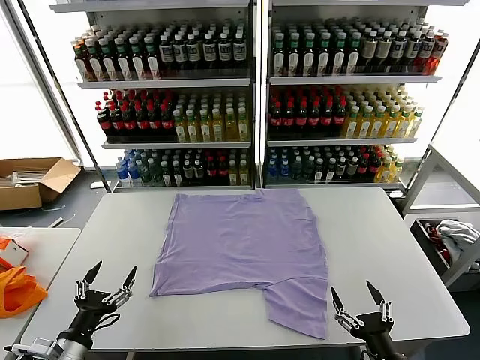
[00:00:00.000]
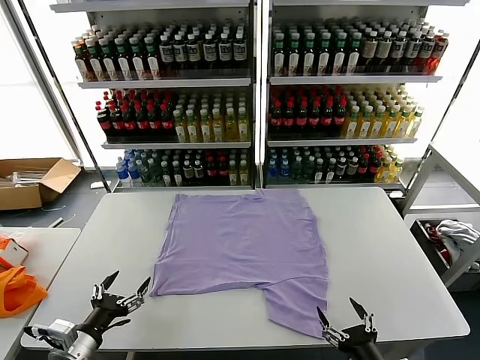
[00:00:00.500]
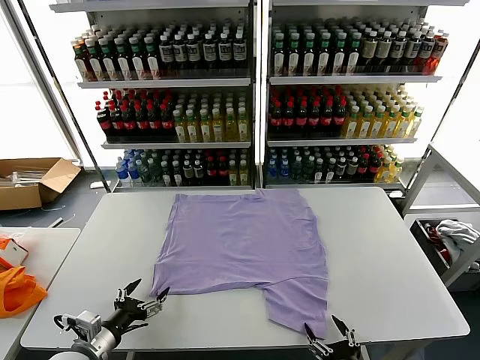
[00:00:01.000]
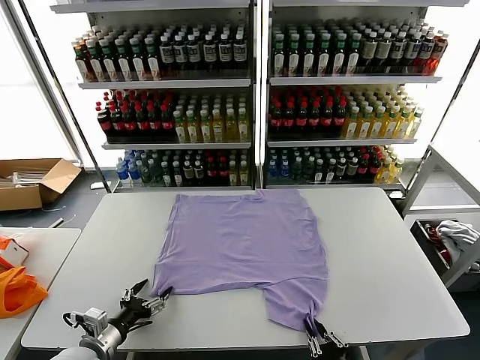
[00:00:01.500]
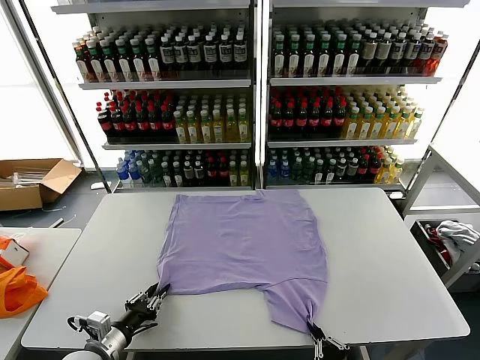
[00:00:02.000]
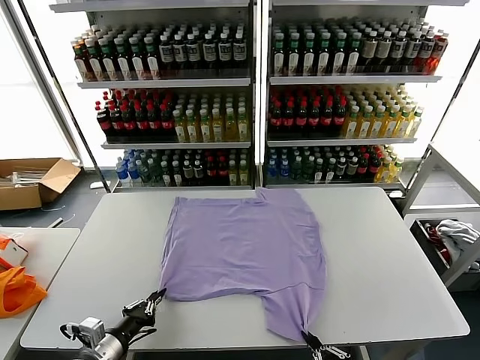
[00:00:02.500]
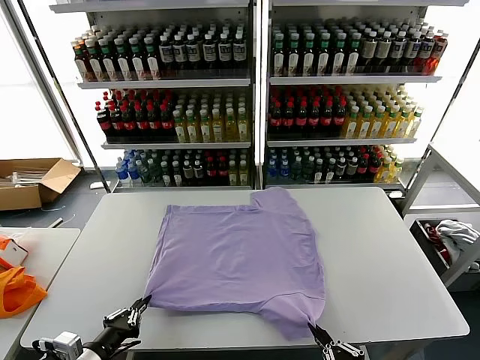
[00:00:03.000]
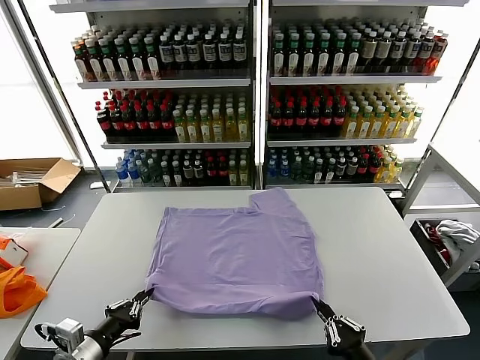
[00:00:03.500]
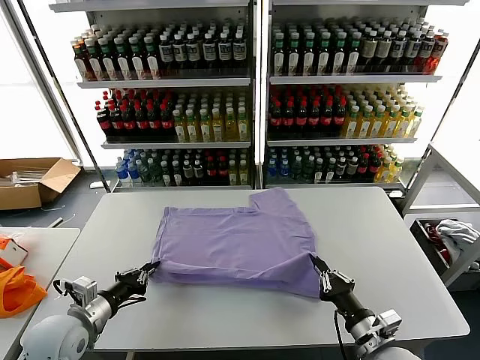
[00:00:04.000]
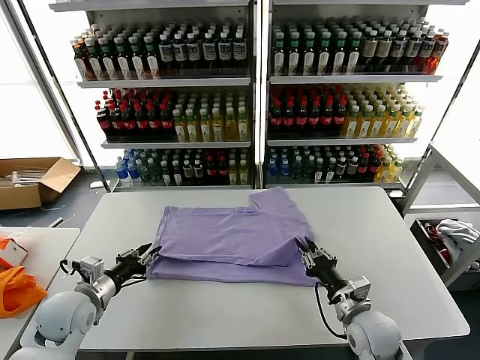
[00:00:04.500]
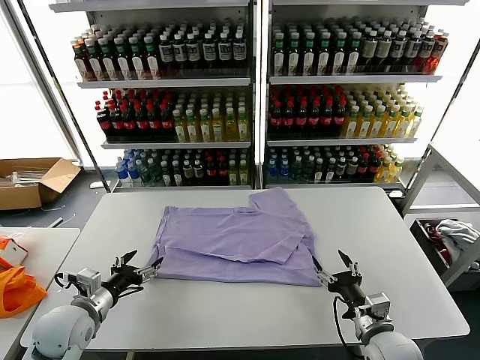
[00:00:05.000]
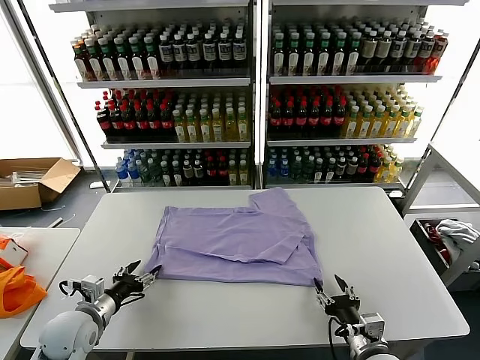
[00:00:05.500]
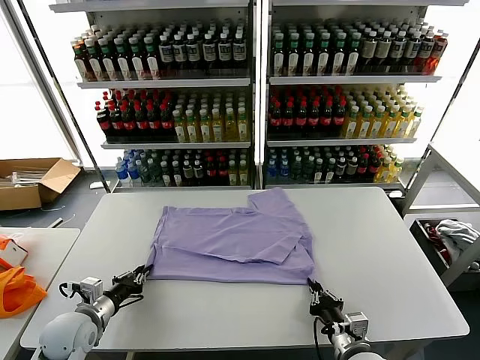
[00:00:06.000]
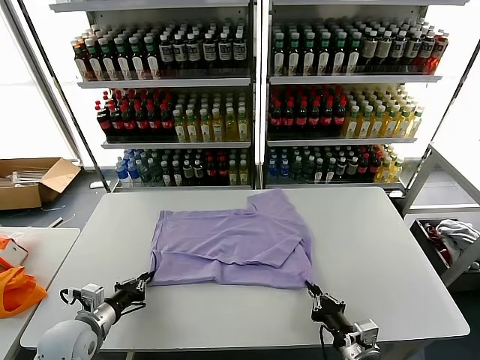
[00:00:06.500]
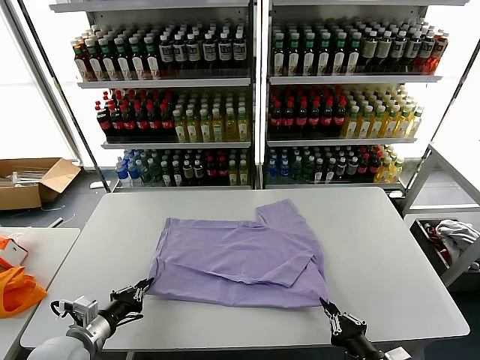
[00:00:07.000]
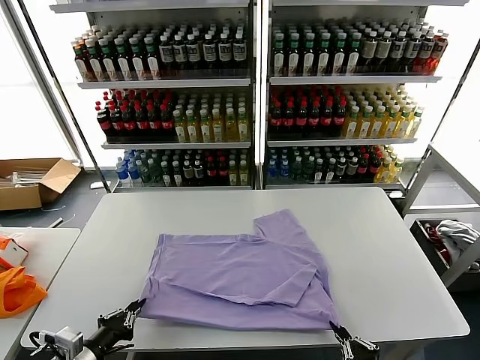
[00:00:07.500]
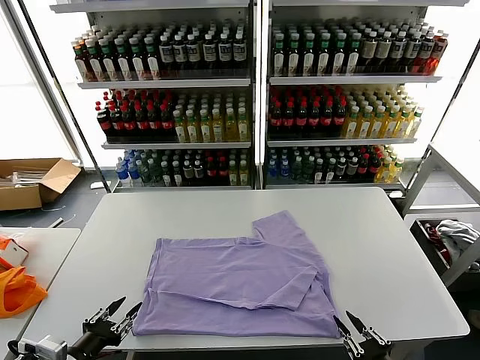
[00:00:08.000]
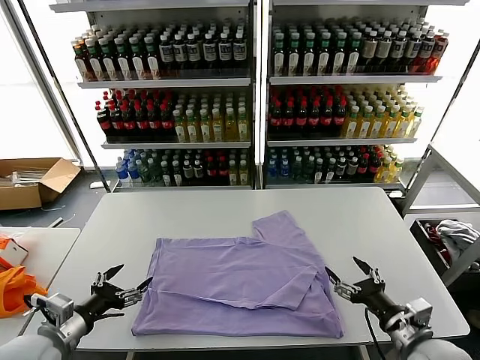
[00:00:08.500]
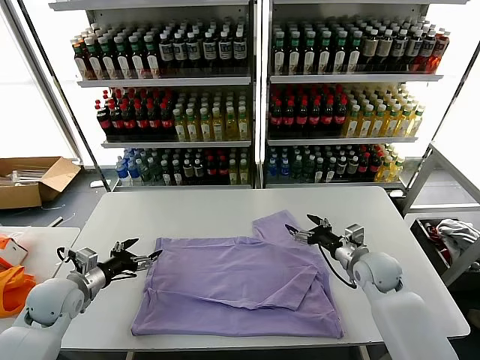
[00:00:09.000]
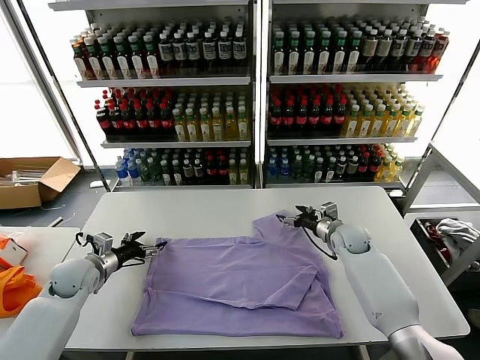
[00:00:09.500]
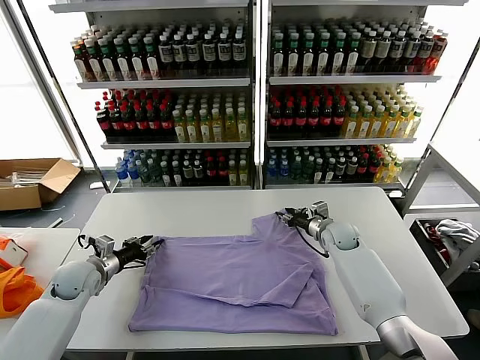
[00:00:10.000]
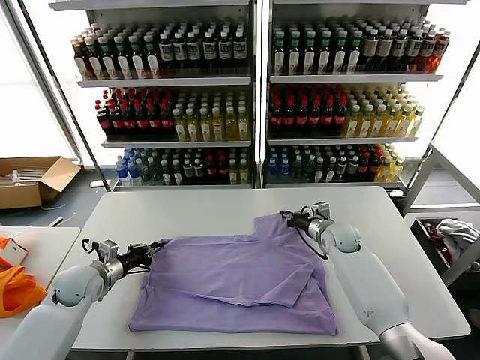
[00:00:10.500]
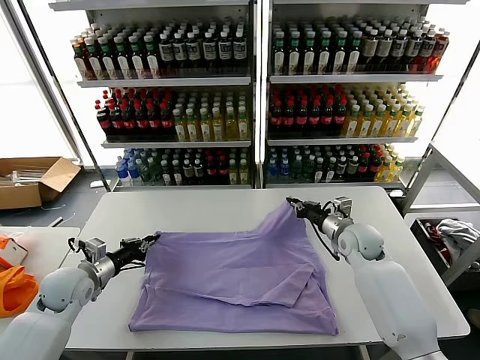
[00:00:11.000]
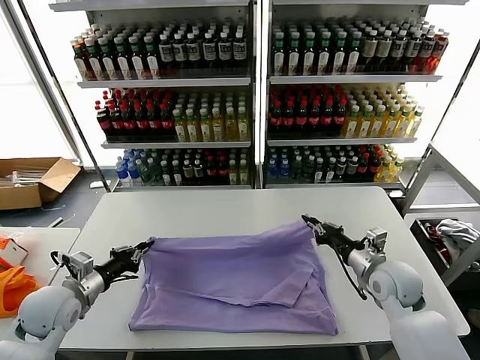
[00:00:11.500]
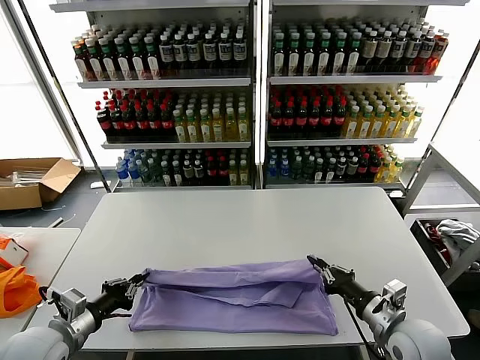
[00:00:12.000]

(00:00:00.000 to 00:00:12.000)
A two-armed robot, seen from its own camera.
Task of the whole recording: fold and organize the clothes.
Step, 00:00:00.000 - 00:00:02.000: use both grippers simultaneously to clamp the lower edge of the clothing fabric.
Step, 00:00:02.500 - 00:00:04.500: use both grippers to drag the lower edge of the fabric forward and fold it over the upper edge.
Step, 00:00:05.000 - 00:00:08.000: Drag the clothes downward with both gripper.
Step, 00:00:08.500 - 00:00:10.000: use both grippers simultaneously to clamp the upper edge of the clothing fabric.
00:00:02.000 - 00:00:04.000: The left gripper moves upward and forward, approximately 10 cm. The right gripper moves forward, roughly 15 cm.
00:00:04.000 - 00:00:06.000: The right gripper shifts by some 5 cm, and opens, then closes once more; the left gripper goes roughly 5 cm downward, and opens and closes again.
00:00:06.000 - 00:00:08.000: The left gripper moves backward and upward, about 15 cm, and opens; the right gripper shifts approximately 15 cm backward, to the right and upward, and opens.
00:00:08.000 - 00:00:10.000: The right gripper heads forward, covering roughly 40 cm, and opens, then closes again; the left gripper shifts about 25 cm forward, and opens, then closes once more.
00:00:10.000 - 00:00:12.000: The left gripper moves backward, about 15 cm, and closes. Meanwhile the right gripper travels backward by approximately 30 cm, and closes up.

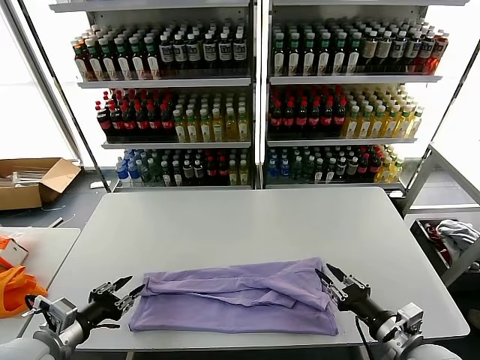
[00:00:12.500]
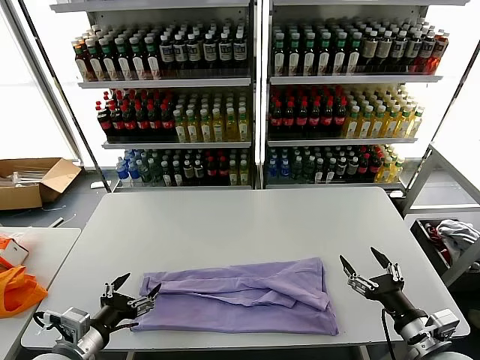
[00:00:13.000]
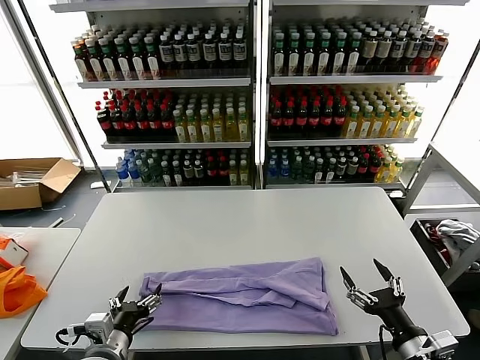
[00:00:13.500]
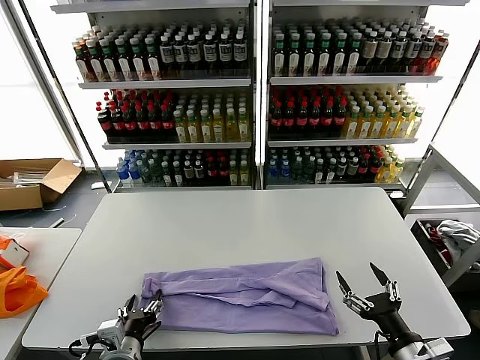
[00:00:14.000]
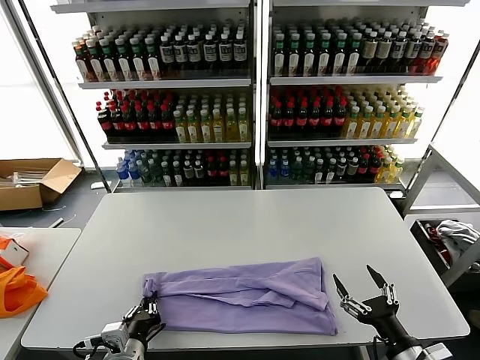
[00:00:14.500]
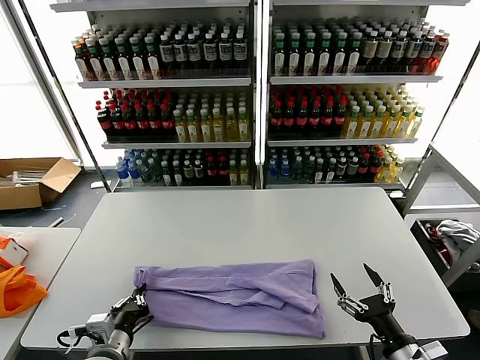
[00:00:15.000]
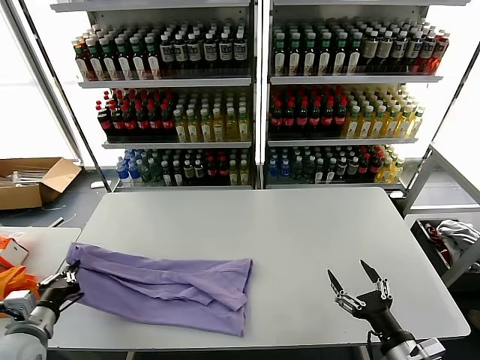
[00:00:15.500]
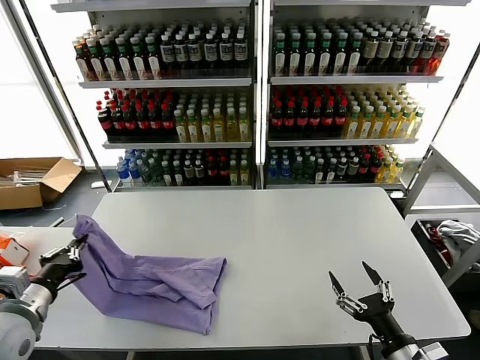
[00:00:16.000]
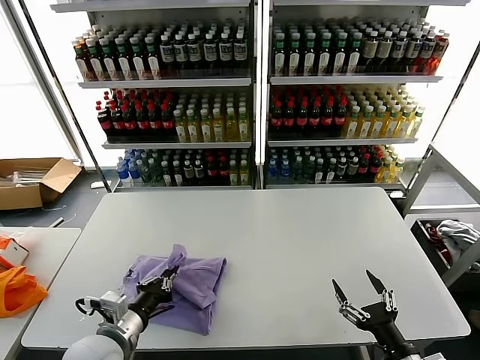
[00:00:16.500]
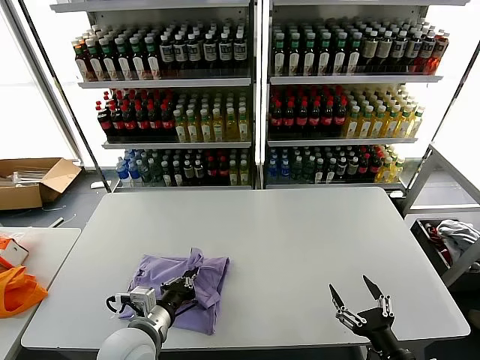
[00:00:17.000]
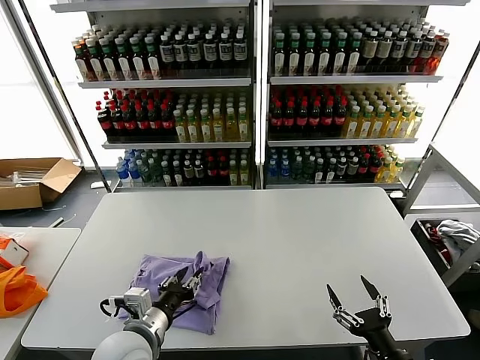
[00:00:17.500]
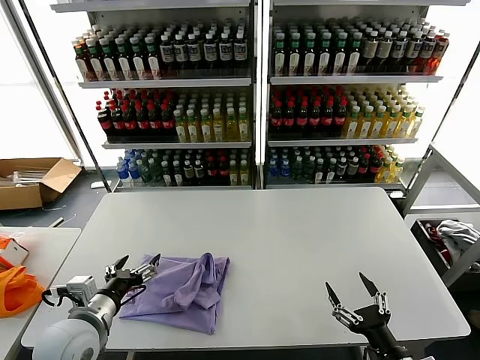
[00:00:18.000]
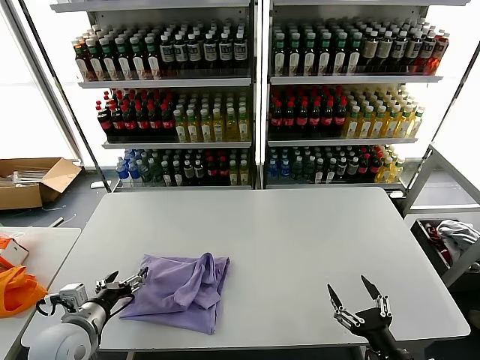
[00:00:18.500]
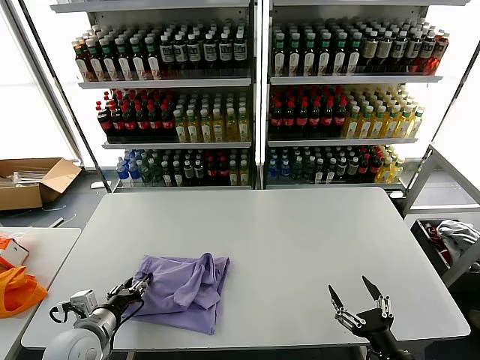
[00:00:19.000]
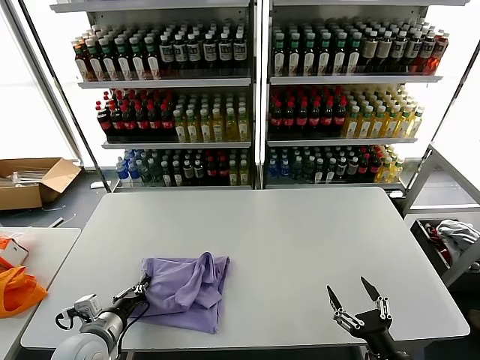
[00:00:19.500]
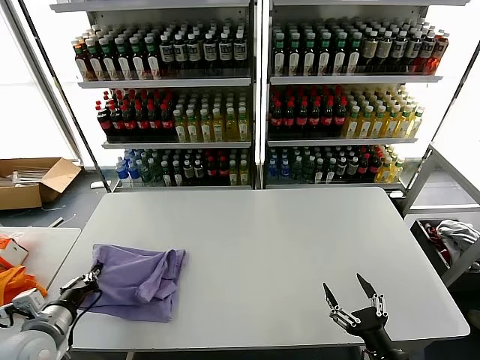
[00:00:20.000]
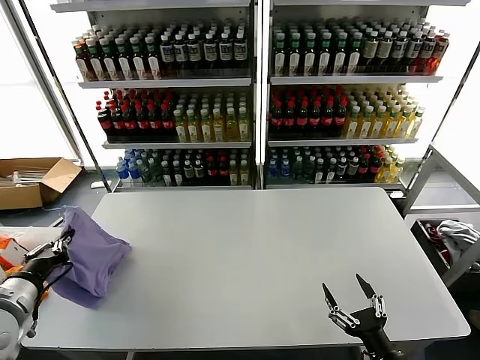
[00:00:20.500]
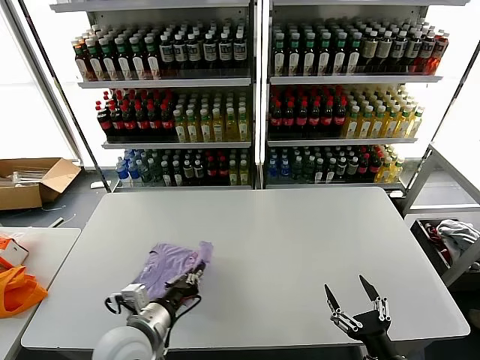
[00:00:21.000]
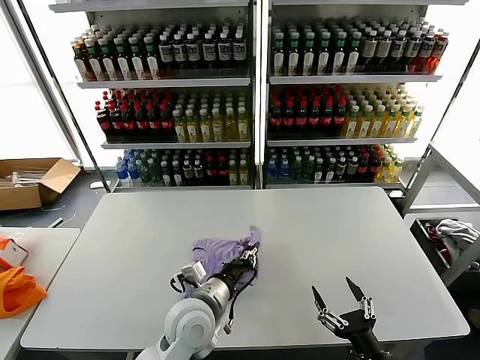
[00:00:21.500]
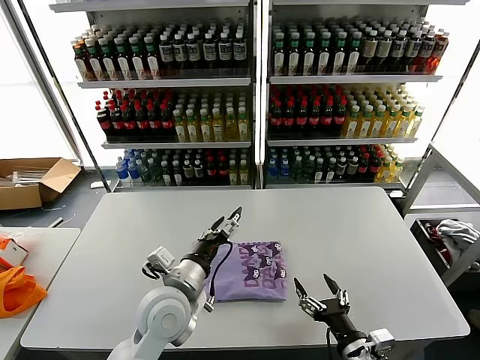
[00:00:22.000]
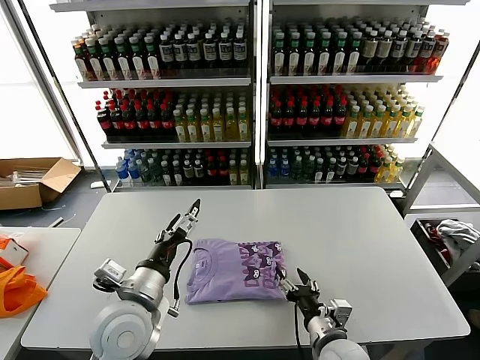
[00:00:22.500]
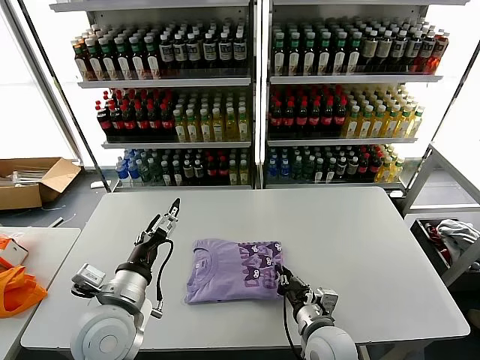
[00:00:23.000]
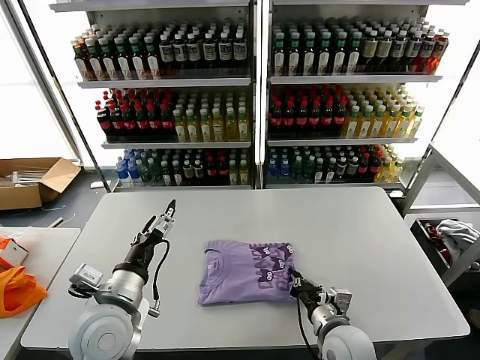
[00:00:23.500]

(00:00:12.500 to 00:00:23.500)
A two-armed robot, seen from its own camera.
Task of the whole recording: fold and organize the clothes.
Step, 00:00:13.000 - 00:00:14.500: use the left gripper to clamp the left edge of the fabric.
Step, 00:00:15.000 - 00:00:17.500: use the left gripper to drag the left edge of the fabric to the left and folds it over the right edge.
Step, 00:00:18.000 - 00:00:21.500: Flip the folded clothes over with left gripper.
00:00:12.500 - 00:00:14.500: The left gripper is displaced to the right and downward by roughly 15 cm, and opens, then closes again; the right gripper shifts roughly 5 cm backward, and opens its fingers.
00:00:14.500 - 00:00:16.000: The left gripper travels to the left and upward by some 20 cm.
00:00:16.000 - 00:00:18.000: The left gripper travels to the right by approximately 10 cm, and opens its fingers.
00:00:18.000 - 00:00:20.000: The left gripper goes some 10 cm to the left, and closes up.
00:00:20.000 - 00:00:21.500: The left gripper shifts roughly 30 cm to the right.
00:00:21.500 - 00:00:23.500: The right gripper shifts about 15 cm forward and to the left, and closes up. The left gripper goes about 15 cm to the left and upward, and opens.

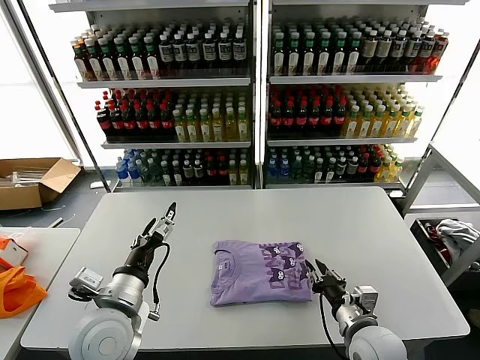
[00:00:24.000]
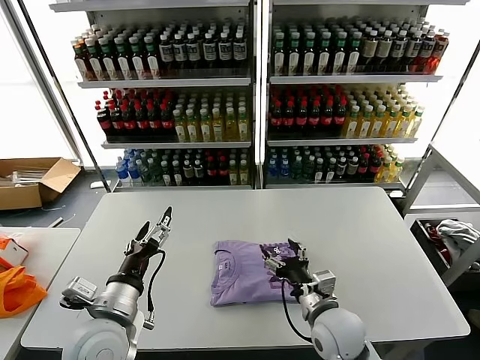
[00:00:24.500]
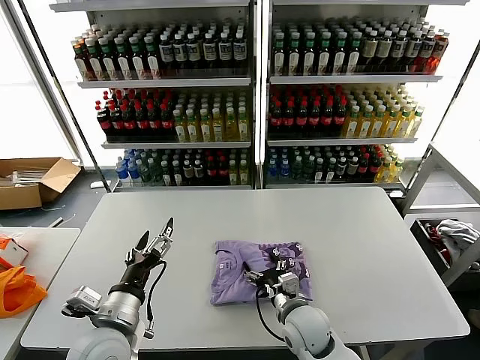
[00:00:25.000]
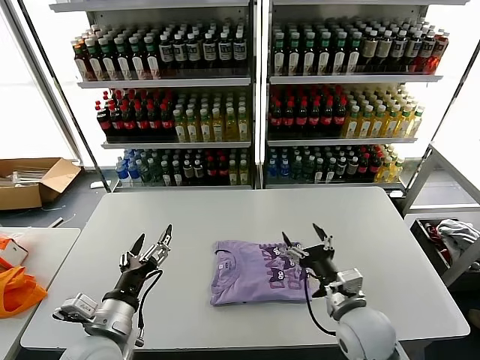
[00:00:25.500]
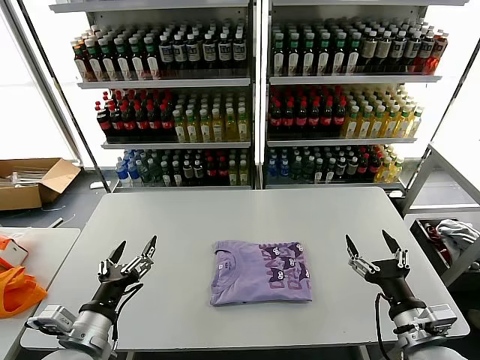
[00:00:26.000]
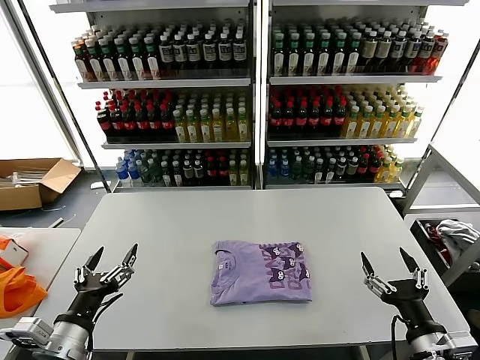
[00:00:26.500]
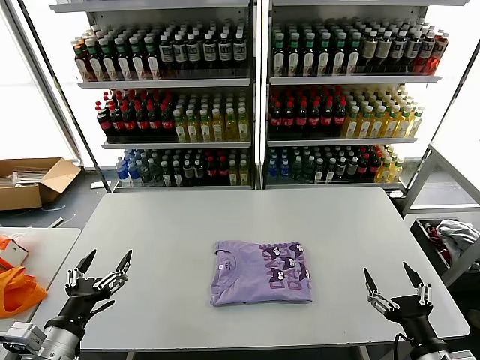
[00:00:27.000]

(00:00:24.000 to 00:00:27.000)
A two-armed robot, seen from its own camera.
Task of the whole recording: fold and organize the clothes.
00:00:24.000 - 00:00:25.500: The right gripper opens its fingers.
00:00:25.500 - 00:00:27.000: The right gripper shifts about 20 cm backward and to the right, while the left gripper shifts approximately 10 cm to the left and backward.
